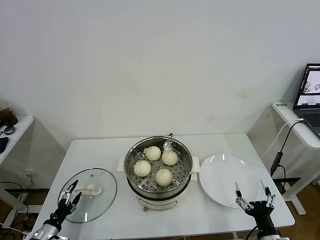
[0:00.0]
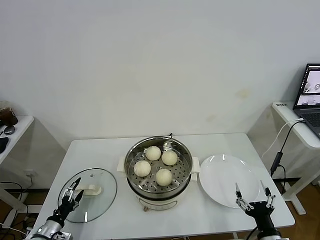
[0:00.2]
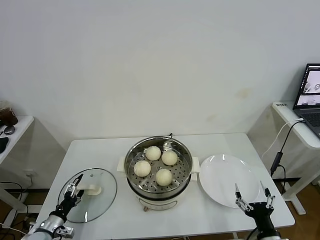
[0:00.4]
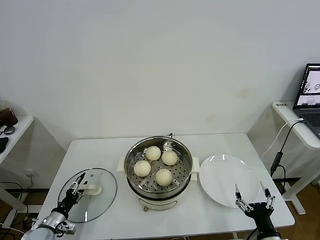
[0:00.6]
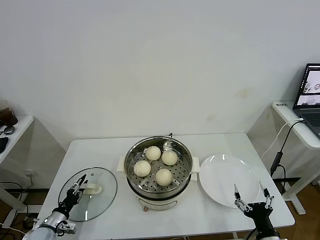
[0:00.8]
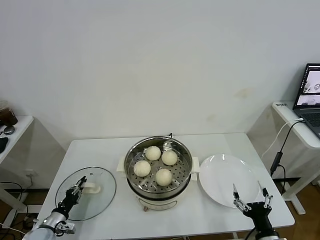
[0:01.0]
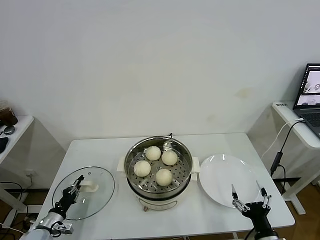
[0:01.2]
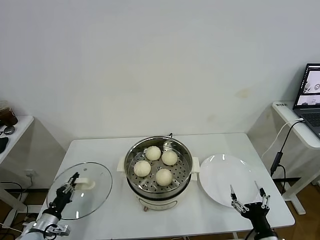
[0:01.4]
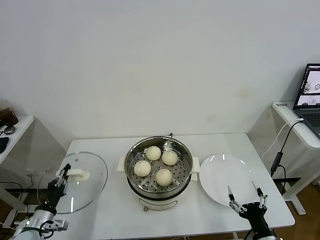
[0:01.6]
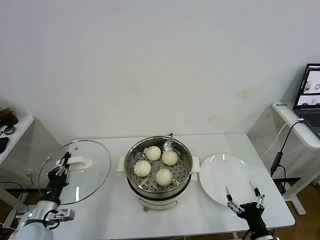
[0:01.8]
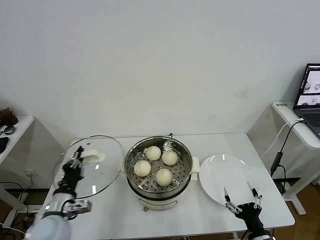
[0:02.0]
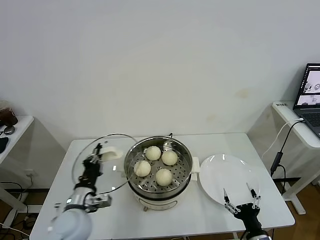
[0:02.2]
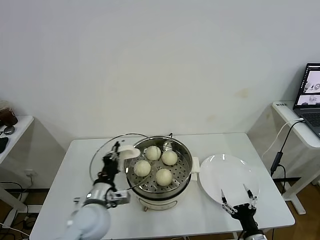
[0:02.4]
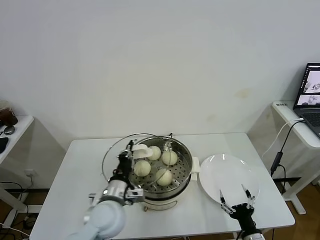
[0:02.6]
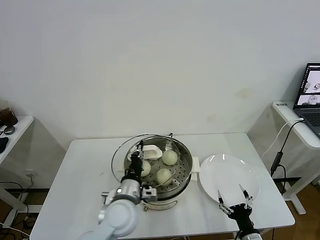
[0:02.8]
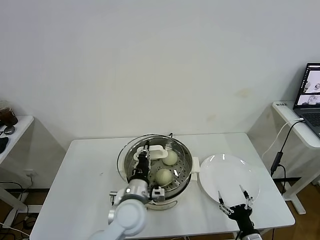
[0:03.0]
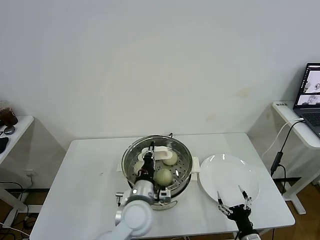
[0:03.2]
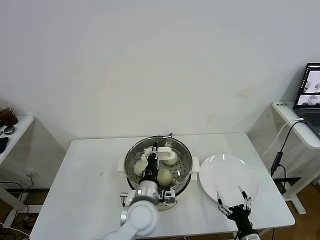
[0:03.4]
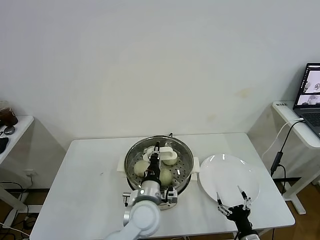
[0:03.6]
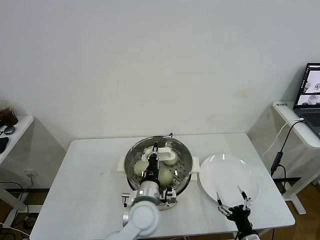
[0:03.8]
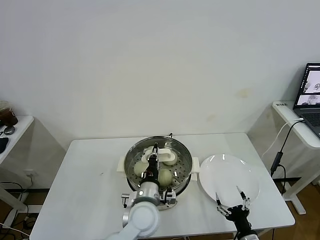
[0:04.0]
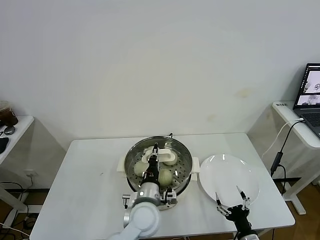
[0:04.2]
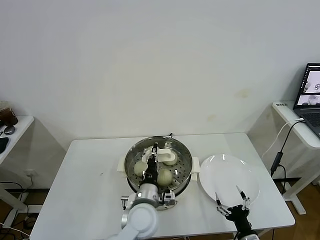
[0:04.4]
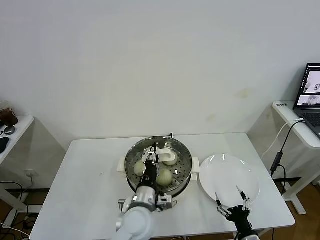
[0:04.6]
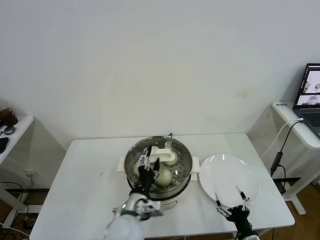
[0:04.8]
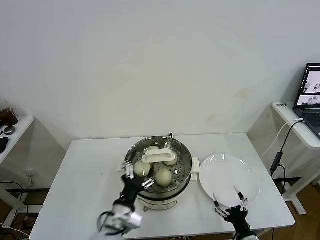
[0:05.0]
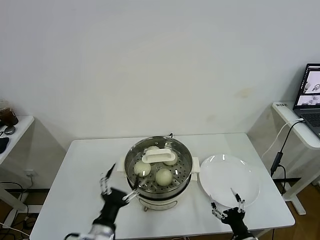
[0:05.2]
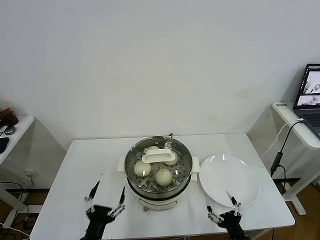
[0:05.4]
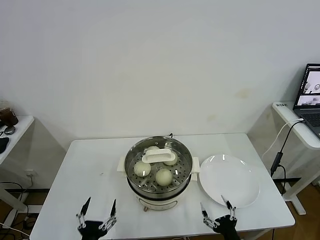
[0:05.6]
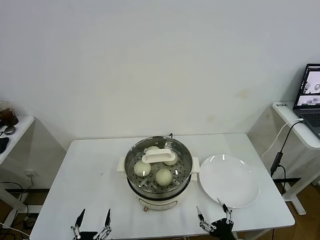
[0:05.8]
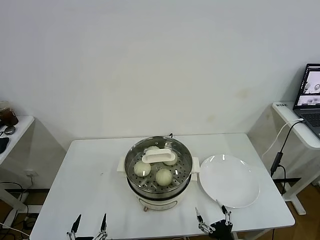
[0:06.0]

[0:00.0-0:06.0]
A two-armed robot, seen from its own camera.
Task of the whole recording: take steamed baozi put them in steamer.
Step, 0:01.4 to 0:04.6: Place the pot lid on the steamer with left gripper.
0:00.0 to 0:01.6: The left gripper heads upward, covering roughly 5 cm, and closes its fingers.
0:01.6 to 0:03.0: The left gripper is displaced to the right by approximately 30 cm. The right gripper heads downward, covering roughly 5 cm.
0:03.0 to 0:04.4: The left gripper moves approximately 5 cm.
0:04.4 to 0:06.0: The right gripper moves about 5 cm. Meanwhile the left gripper travels backward and to the left by approximately 30 cm, and opens up.
